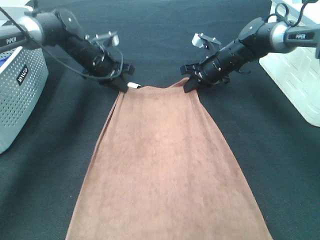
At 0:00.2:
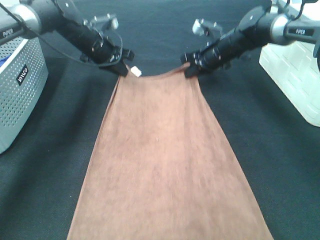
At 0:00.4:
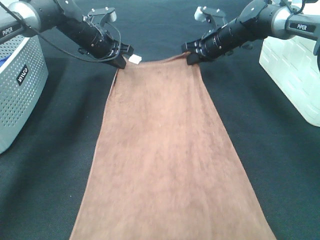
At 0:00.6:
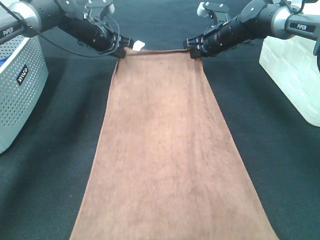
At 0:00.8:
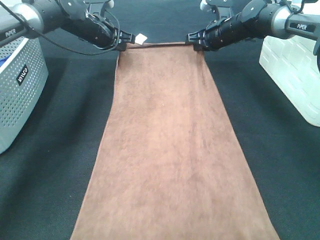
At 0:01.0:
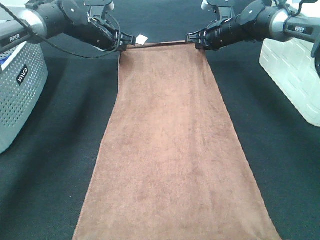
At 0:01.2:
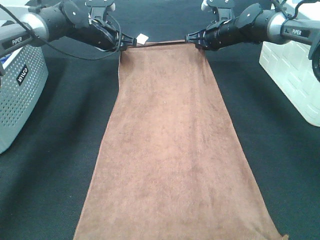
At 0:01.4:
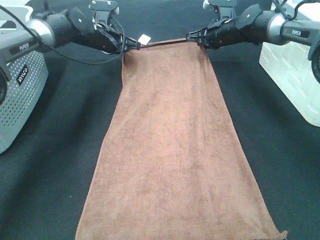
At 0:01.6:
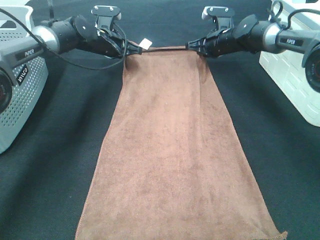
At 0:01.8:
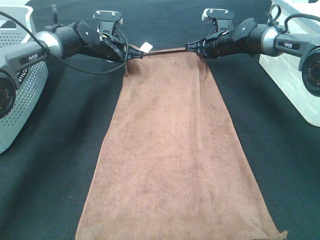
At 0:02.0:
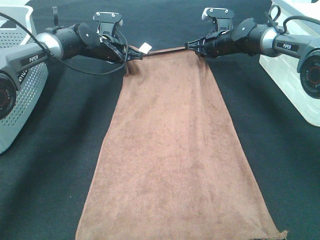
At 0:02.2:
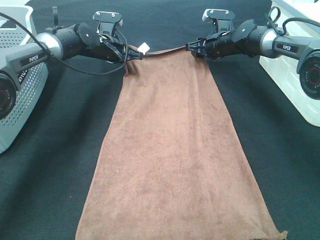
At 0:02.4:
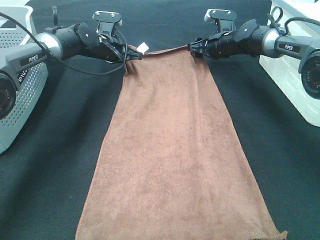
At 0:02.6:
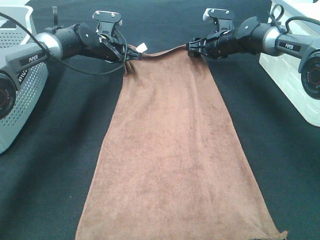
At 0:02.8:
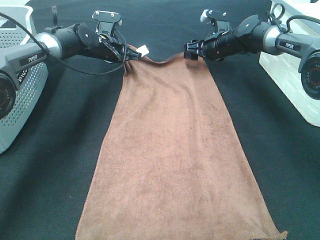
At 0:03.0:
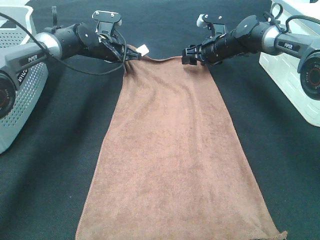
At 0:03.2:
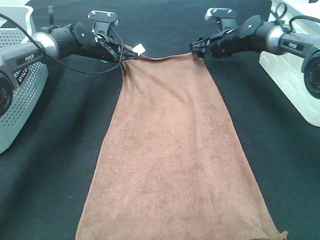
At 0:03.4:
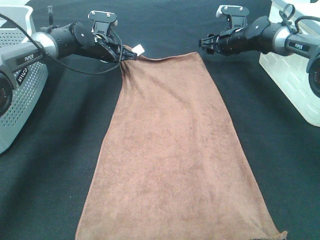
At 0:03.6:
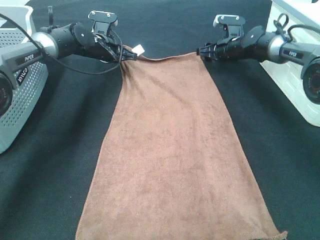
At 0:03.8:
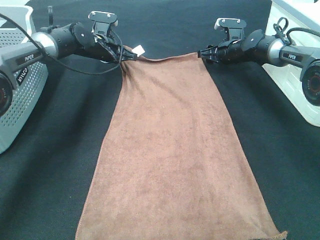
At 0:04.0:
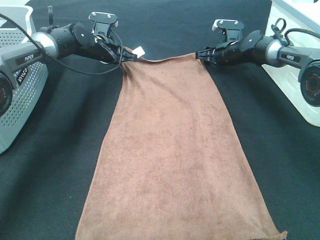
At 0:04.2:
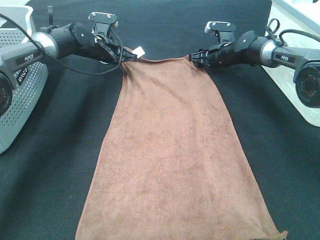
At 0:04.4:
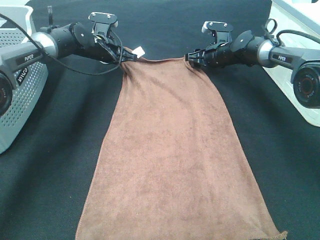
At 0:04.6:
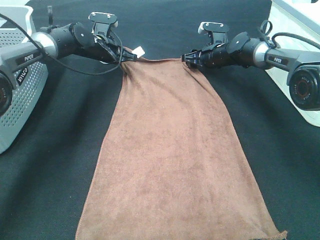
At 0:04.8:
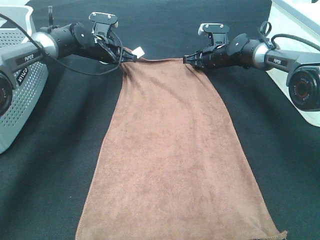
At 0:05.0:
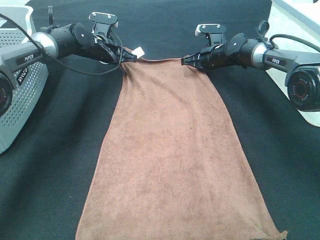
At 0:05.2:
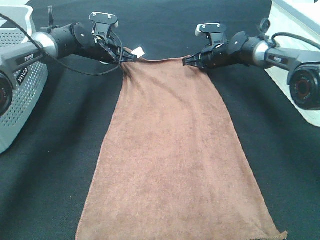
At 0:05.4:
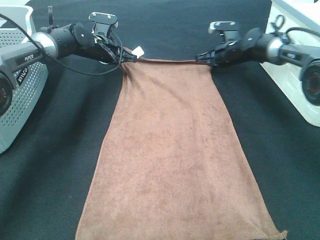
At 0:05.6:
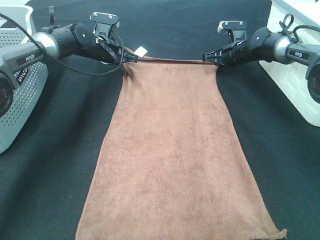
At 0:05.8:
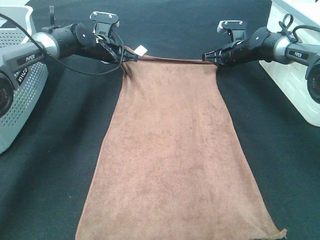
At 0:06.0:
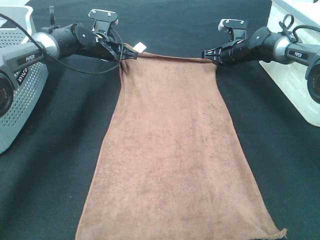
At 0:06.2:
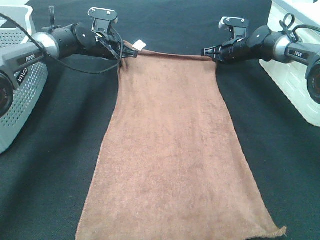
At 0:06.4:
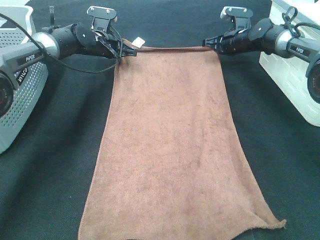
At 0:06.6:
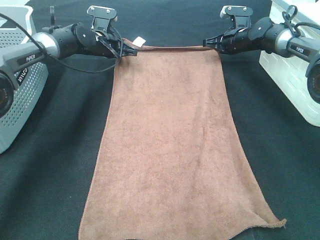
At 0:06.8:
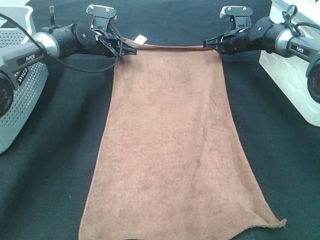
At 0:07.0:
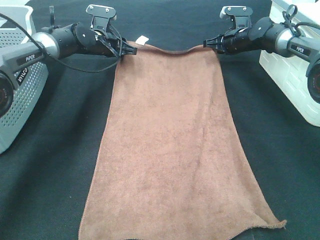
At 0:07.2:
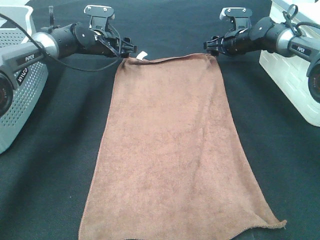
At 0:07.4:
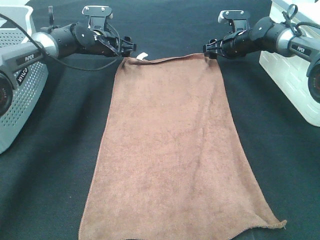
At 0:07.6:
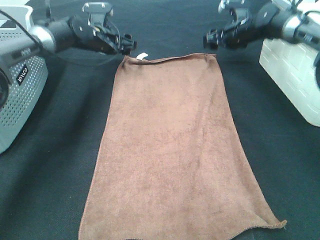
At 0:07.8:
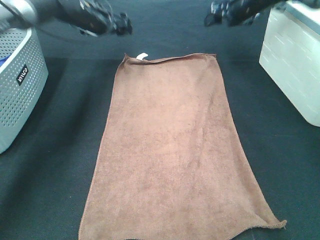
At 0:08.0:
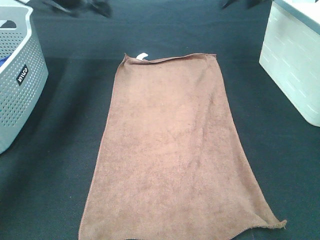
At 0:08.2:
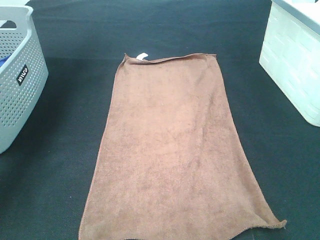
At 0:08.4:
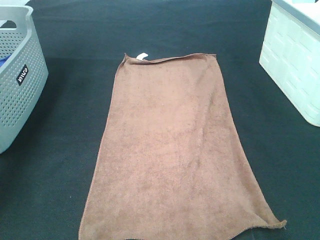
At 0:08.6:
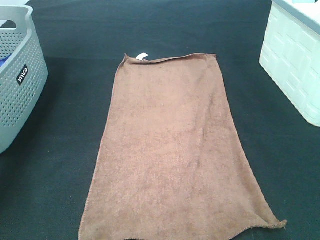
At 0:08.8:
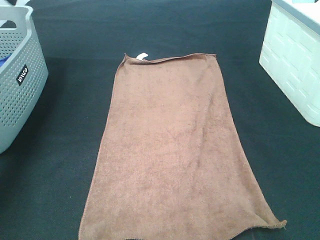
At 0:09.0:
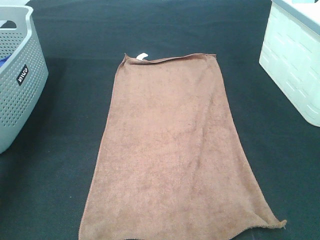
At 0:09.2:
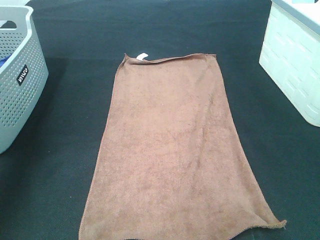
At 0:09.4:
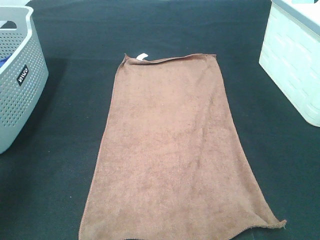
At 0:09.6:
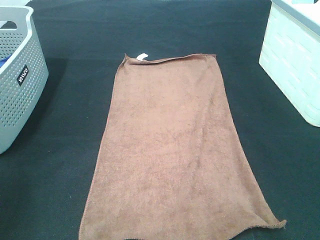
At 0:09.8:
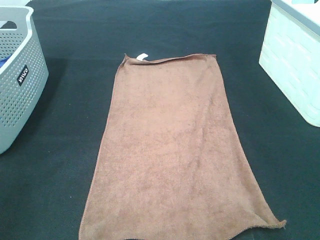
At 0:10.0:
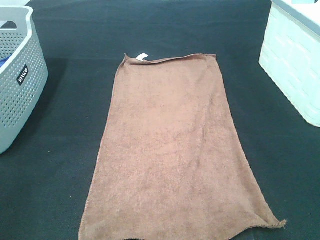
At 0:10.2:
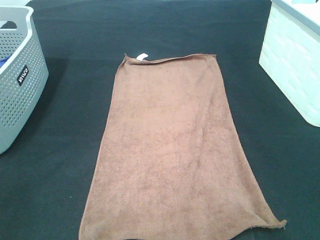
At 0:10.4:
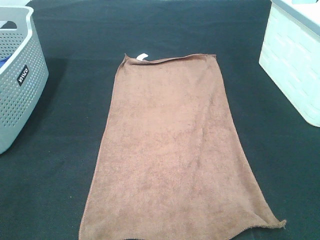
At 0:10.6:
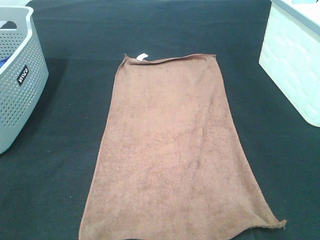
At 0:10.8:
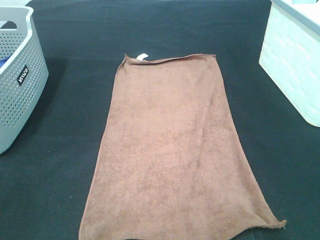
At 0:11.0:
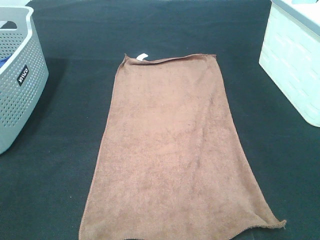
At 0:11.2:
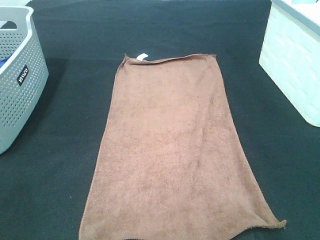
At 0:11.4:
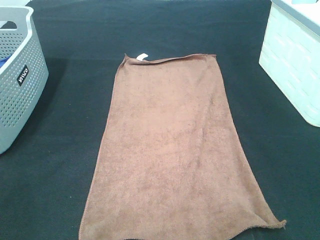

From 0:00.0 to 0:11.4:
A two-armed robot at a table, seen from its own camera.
Task of the whole recording: Remove the towel and place it.
From 0:00.0 to 0:01.4: The right gripper heads forward, covering some 5 cm.
From 0:01.4 to 0:02.8: The right gripper opens its fingers.
From 0:02.8 to 0:04.2: The grippers move only a little.
From 0:04.2 to 0:05.6: The right gripper closes.
From 0:05.6 to 0:07.2: The right gripper opens its fingers. Meanwhile the left gripper opens.
From 0:07.2 to 0:08.6: The left gripper is displaced upward, to the left and backward by some 30 cm; the right gripper is displaced upward and backward by some 35 cm.
From 0:08.6 to 0:10.0: The left gripper moves backward, some 40 cm.

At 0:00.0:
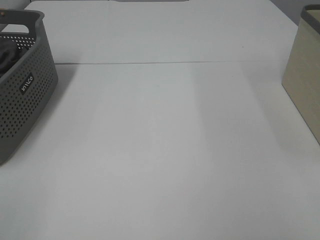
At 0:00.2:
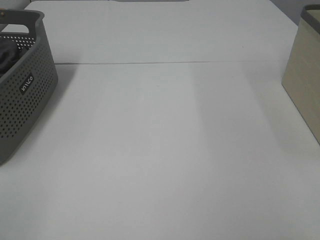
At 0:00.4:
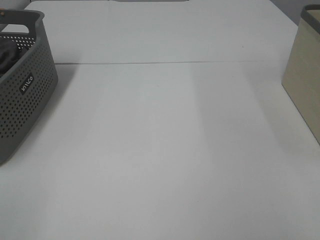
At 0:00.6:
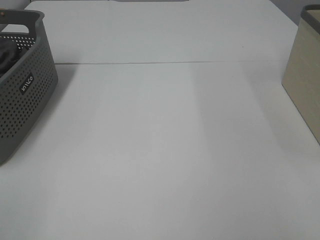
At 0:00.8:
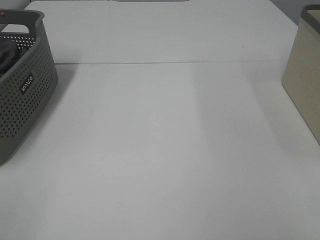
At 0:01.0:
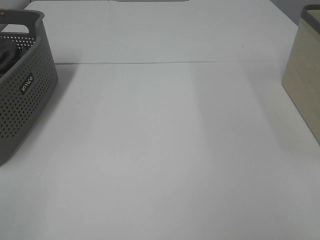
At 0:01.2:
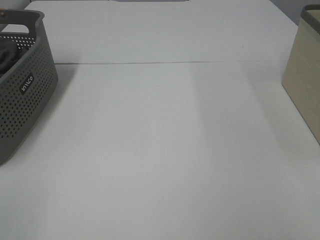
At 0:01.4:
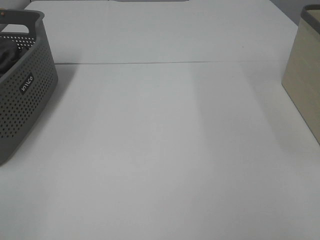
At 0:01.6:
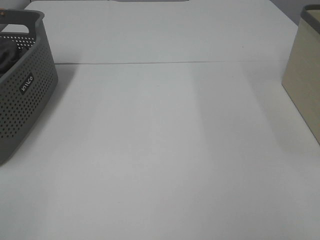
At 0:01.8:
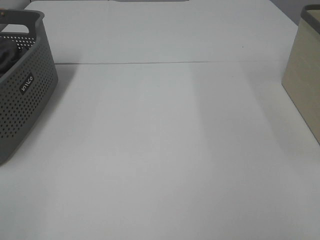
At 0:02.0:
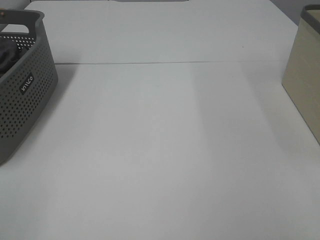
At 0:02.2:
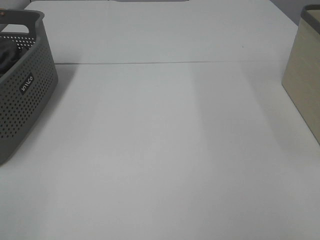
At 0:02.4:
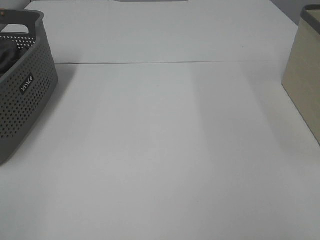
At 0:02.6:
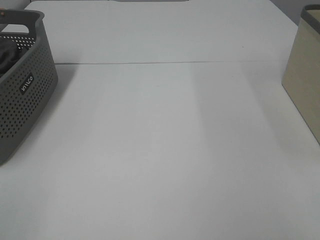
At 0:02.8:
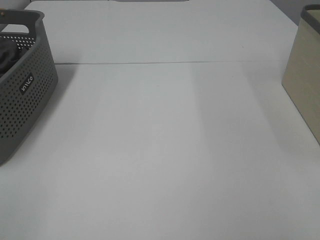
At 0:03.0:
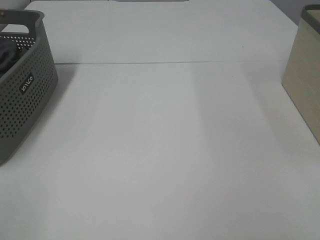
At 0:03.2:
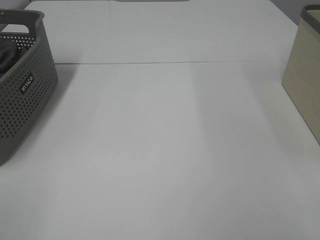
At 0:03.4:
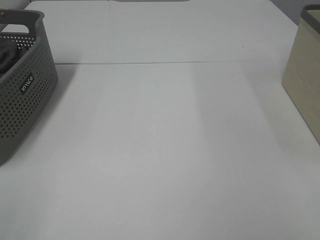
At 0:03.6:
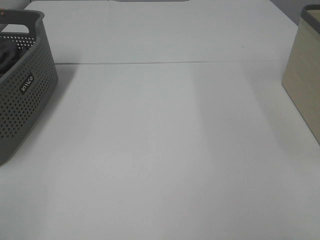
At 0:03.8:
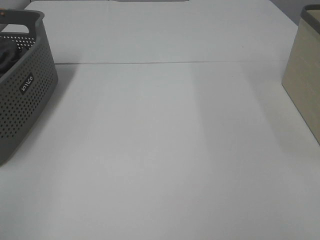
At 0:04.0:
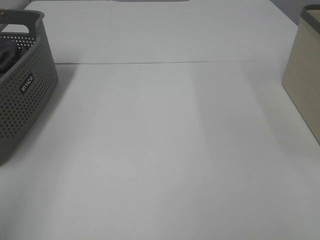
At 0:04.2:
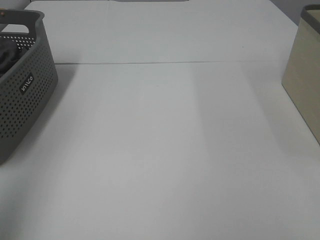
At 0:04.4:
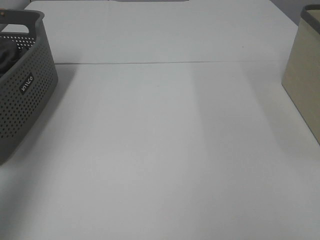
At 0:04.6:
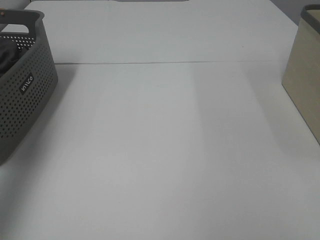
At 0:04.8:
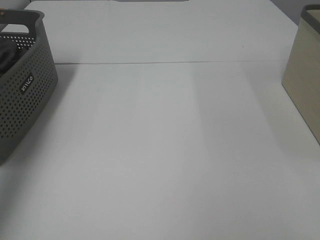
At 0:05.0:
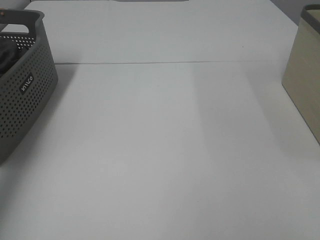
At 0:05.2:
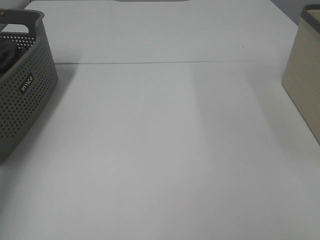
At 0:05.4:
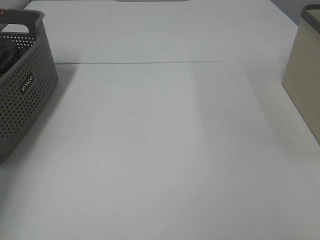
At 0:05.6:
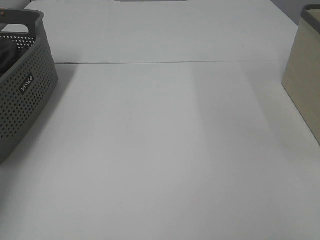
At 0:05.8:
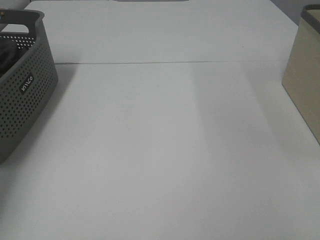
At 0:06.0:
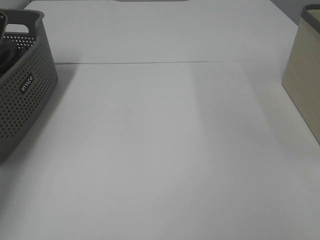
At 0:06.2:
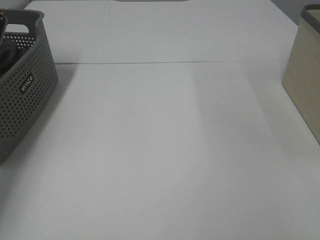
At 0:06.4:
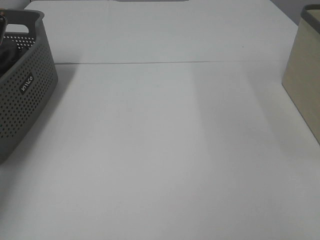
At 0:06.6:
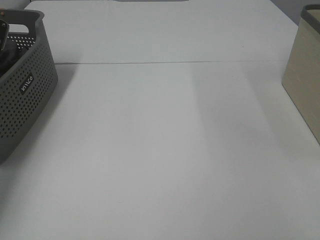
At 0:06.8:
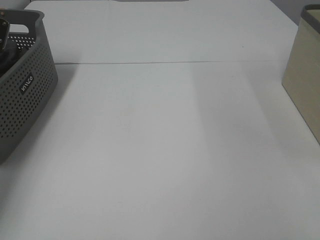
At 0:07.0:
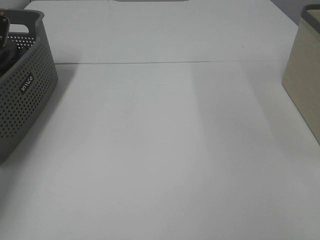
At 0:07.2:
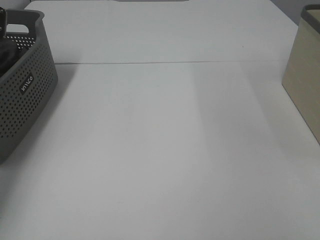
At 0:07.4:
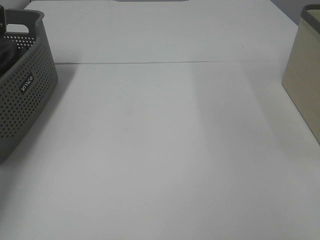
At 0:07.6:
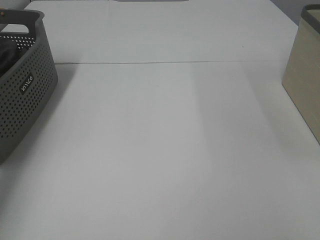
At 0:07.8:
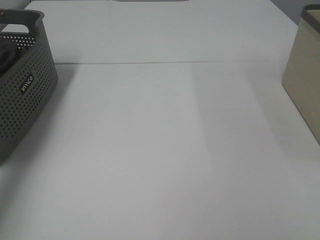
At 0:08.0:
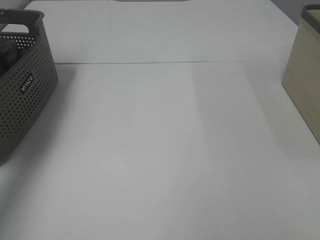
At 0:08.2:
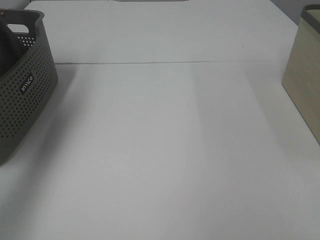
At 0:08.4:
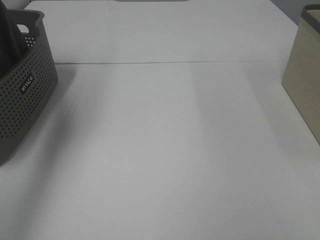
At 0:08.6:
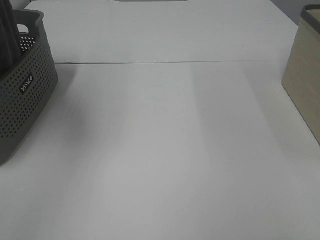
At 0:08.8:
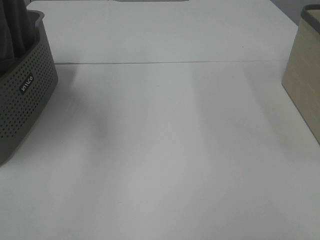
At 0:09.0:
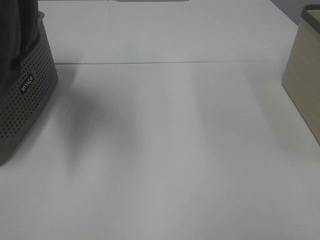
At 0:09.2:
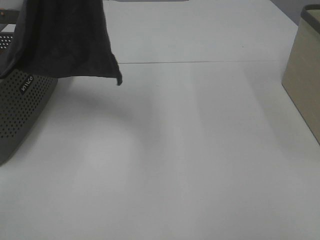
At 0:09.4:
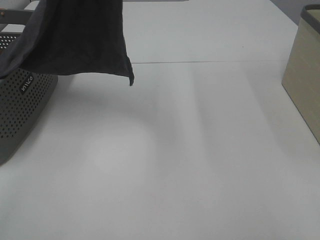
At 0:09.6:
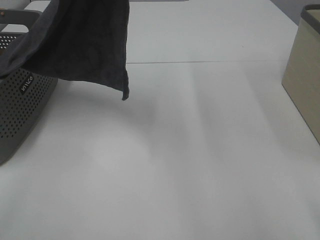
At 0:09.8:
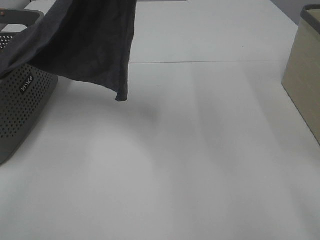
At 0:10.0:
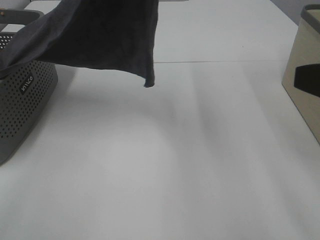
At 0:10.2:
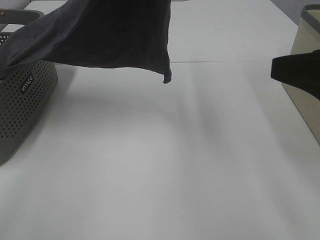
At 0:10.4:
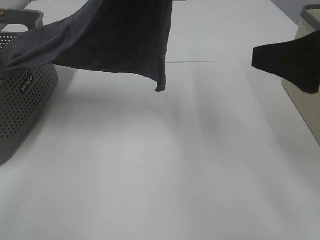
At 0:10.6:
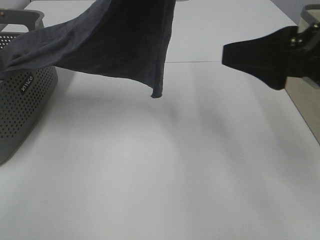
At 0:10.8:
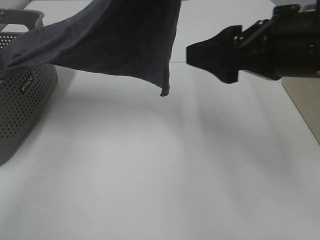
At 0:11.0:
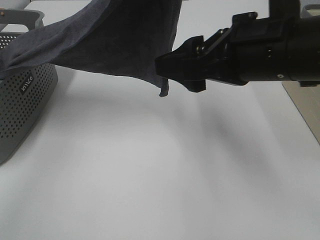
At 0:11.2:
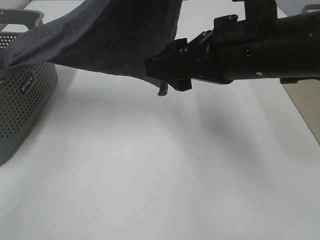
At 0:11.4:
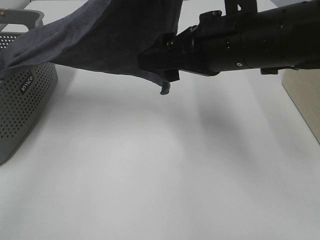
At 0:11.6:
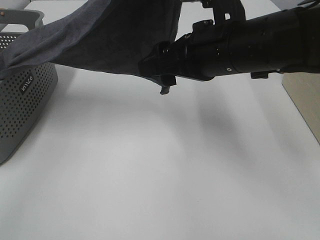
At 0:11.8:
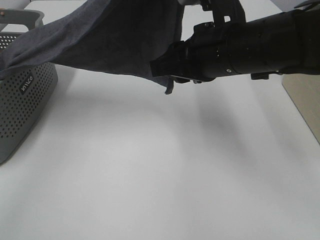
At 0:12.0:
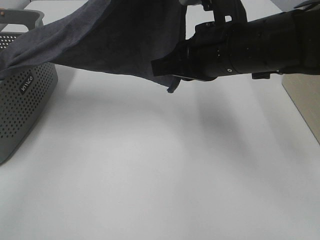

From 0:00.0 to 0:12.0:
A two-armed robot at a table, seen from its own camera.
Task of the whole recording: Remove the towel and place it.
From 0:00.0 to 0:03.0: Both grippers stay put.
From 0:03.0 to 0:04.4: The left gripper heads forward and upward, covering some 25 cm.
From 0:04.4 to 0:06.0: The left gripper shifts about 35 cm forward and downward.
From 0:07.6 to 0:09.0: The left gripper travels upward, to the right and backward by some 40 cm.
From 0:09.0 to 0:10.4: The right gripper moves forward, about 15 cm. Meanwhile the left gripper shifts approximately 10 cm to the right.
From 0:10.4 to 0:12.0: The right gripper shifts some 15 cm to the left and forward, and closes its fingers.
